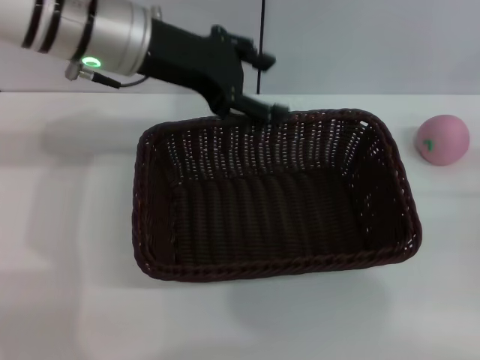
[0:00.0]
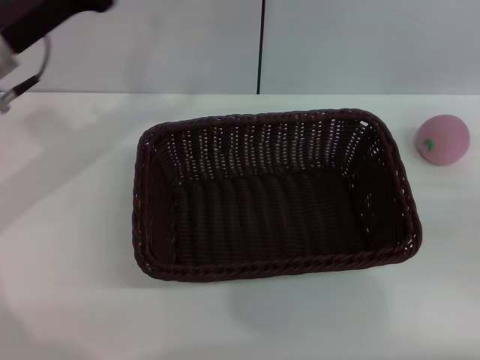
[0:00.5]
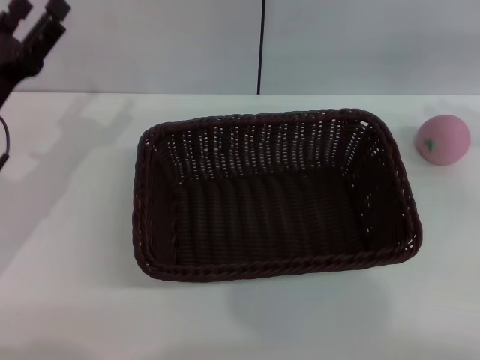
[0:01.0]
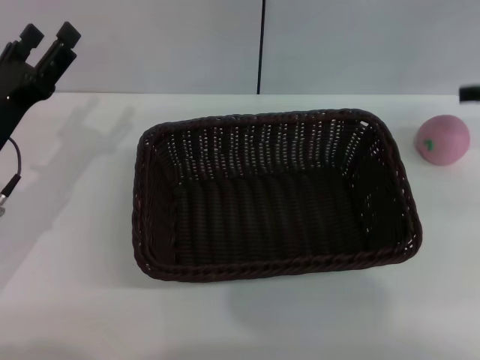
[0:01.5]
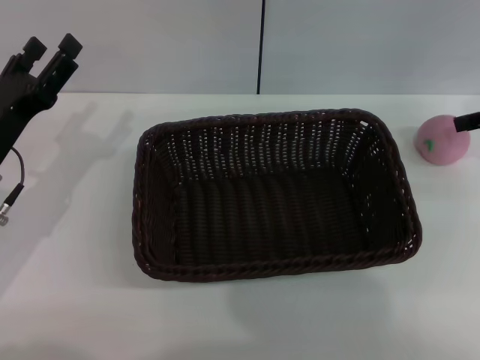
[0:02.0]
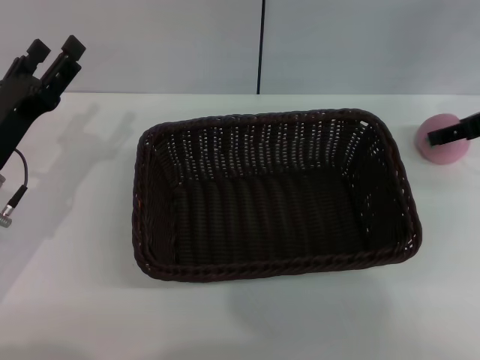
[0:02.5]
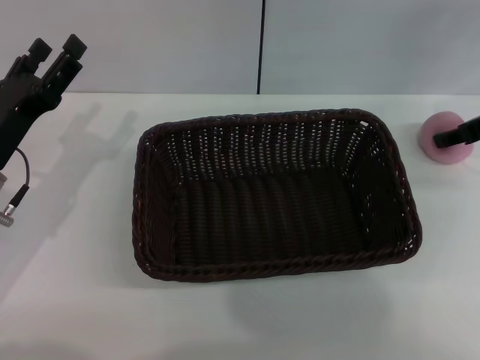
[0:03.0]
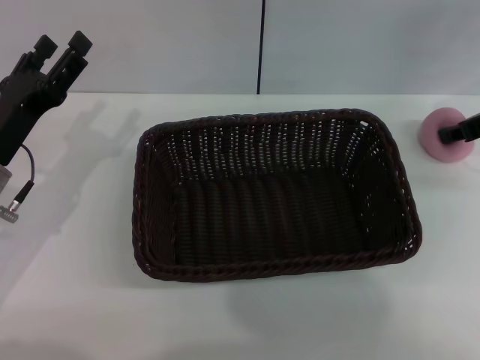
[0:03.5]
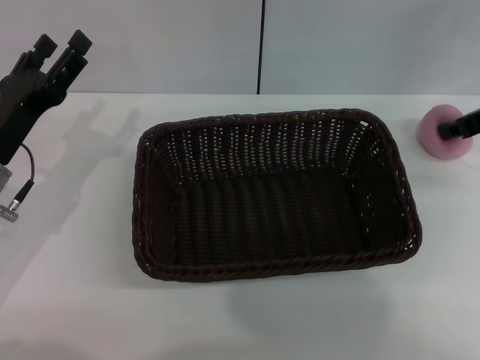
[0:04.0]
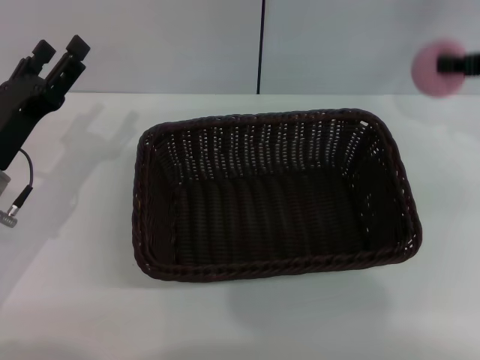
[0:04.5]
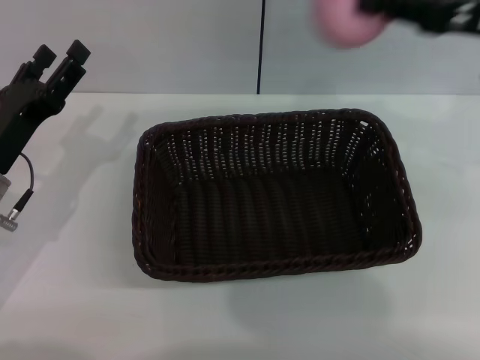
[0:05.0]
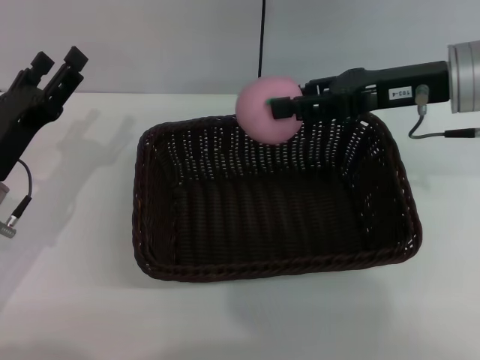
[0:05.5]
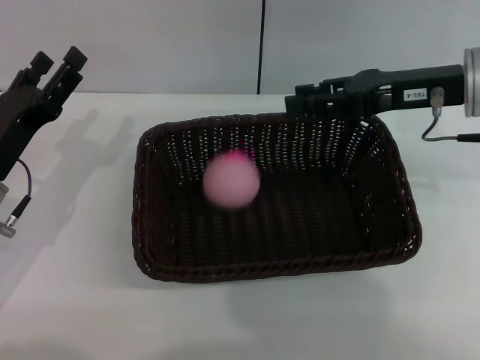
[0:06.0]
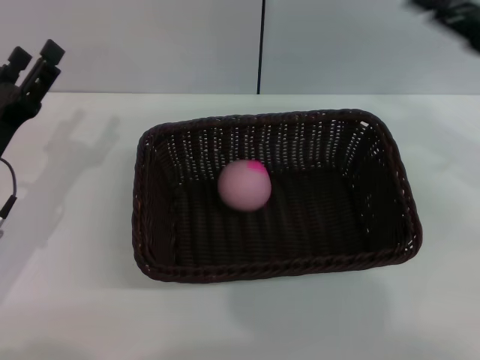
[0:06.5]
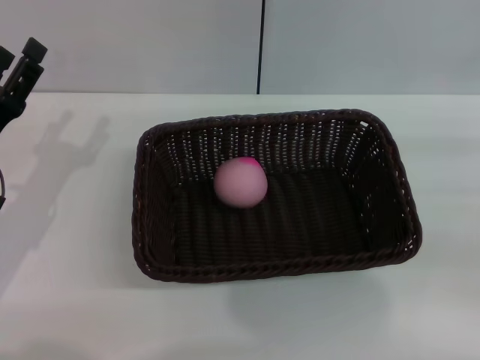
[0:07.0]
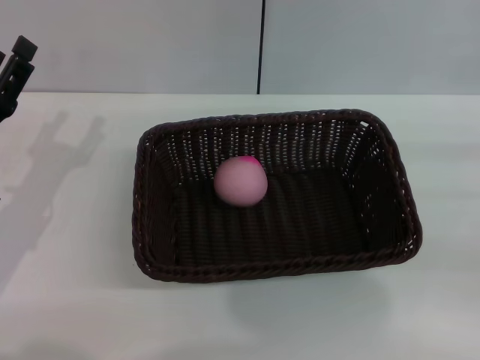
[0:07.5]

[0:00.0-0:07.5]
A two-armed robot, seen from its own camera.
Step, 0:00.5 to 0:04.0: Pick up the peach with the left gripper.
0:00.0 to 0:02.0: The right gripper travels upward and forward by some 15 cm, while the left gripper goes about 25 cm downward, to the left and backward.
0:02.0 to 0:04.0: The right gripper moves approximately 5 cm, and closes.
0:04.0 to 0:05.5: The right gripper is displaced to the left by about 10 cm.
0:05.5 to 0:07.5: The right gripper shifts approximately 25 cm to the right, backward and downward.
